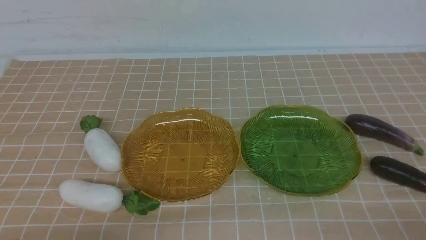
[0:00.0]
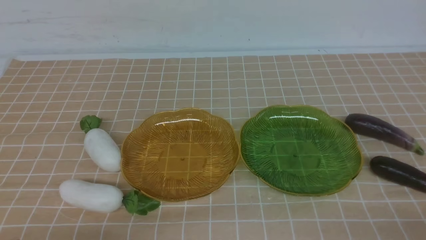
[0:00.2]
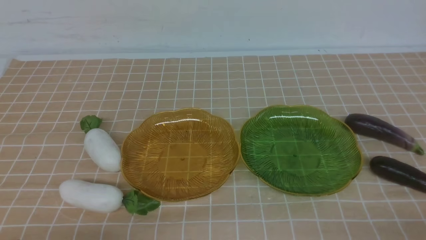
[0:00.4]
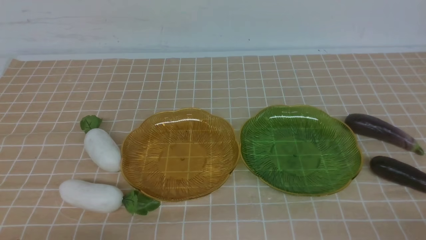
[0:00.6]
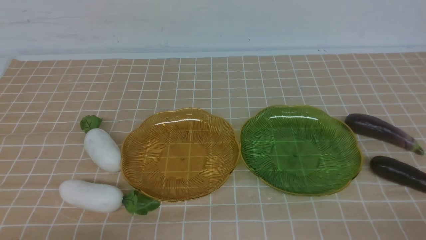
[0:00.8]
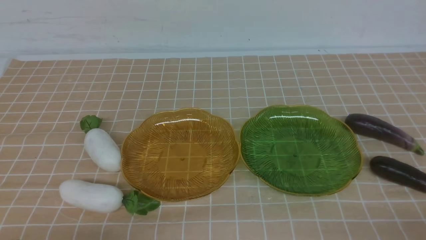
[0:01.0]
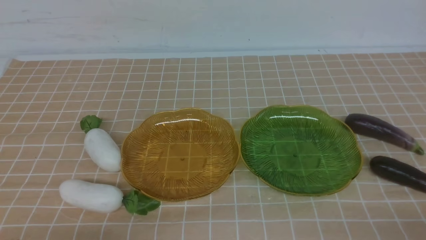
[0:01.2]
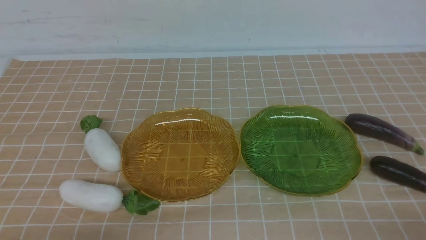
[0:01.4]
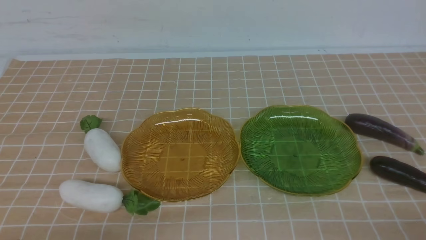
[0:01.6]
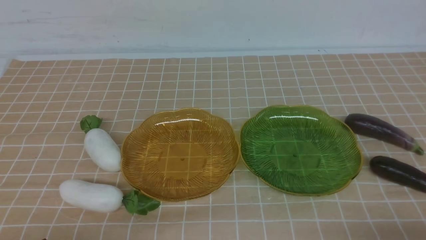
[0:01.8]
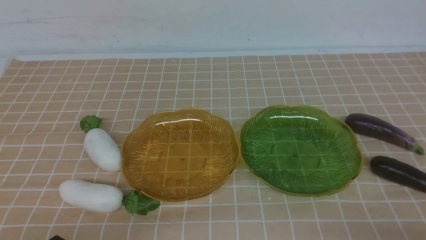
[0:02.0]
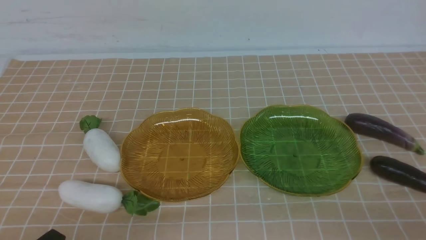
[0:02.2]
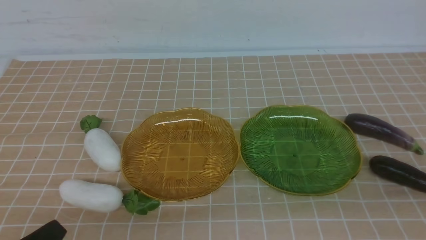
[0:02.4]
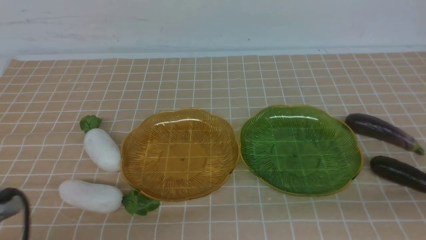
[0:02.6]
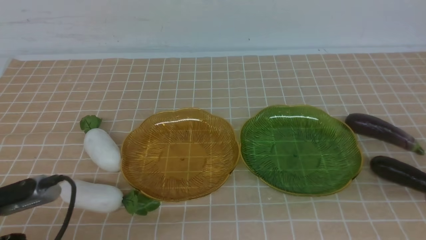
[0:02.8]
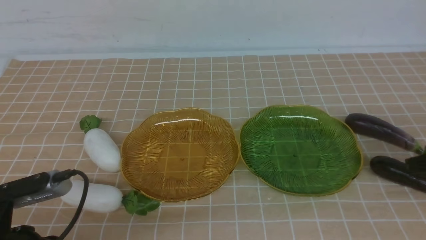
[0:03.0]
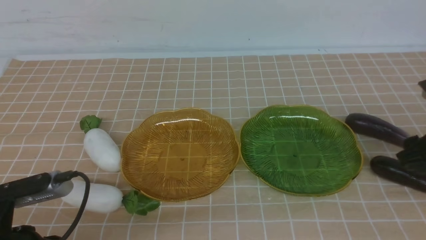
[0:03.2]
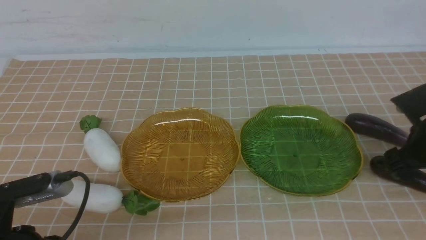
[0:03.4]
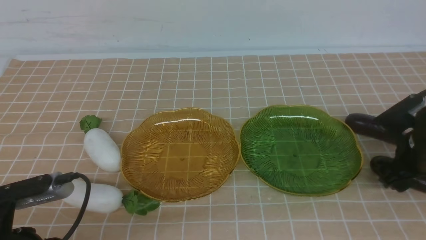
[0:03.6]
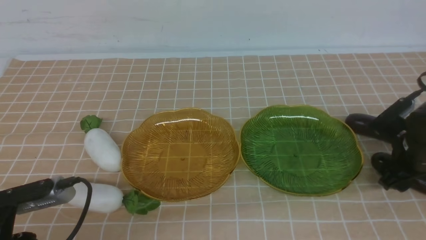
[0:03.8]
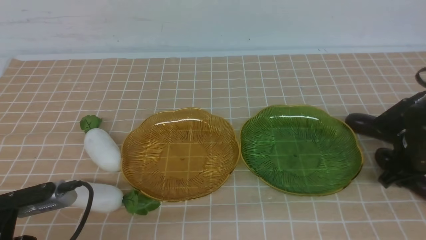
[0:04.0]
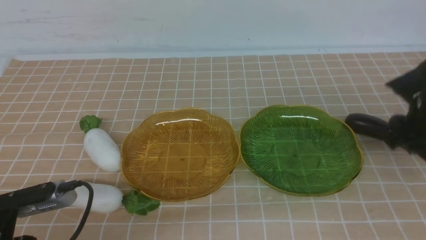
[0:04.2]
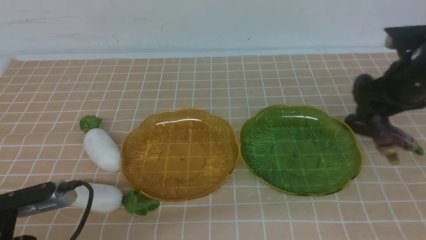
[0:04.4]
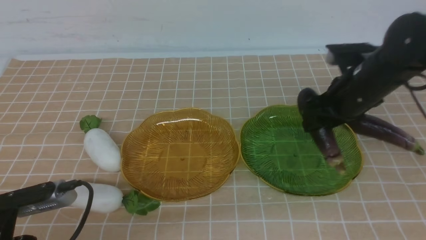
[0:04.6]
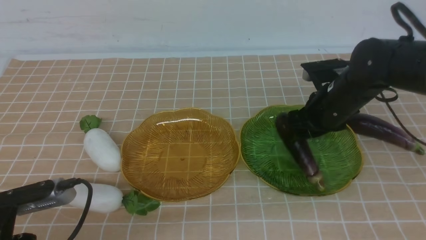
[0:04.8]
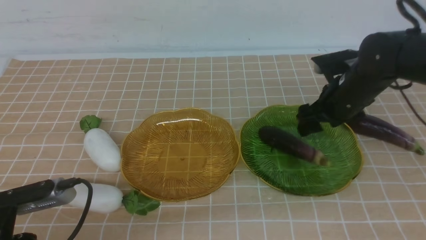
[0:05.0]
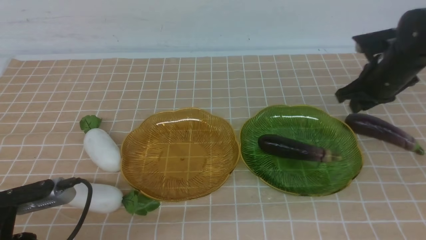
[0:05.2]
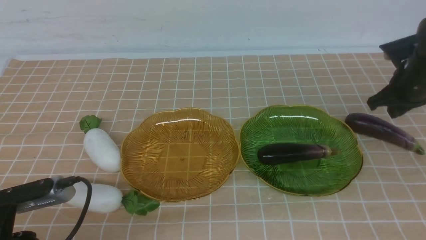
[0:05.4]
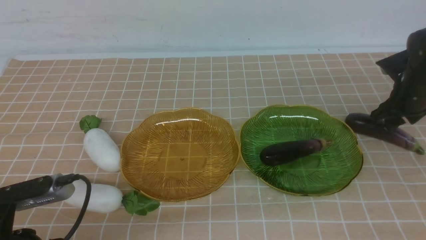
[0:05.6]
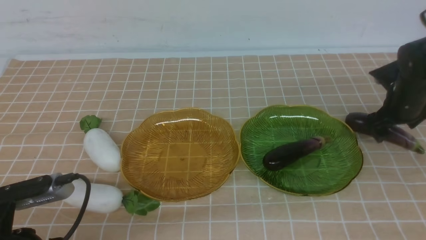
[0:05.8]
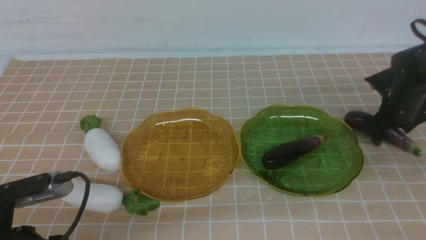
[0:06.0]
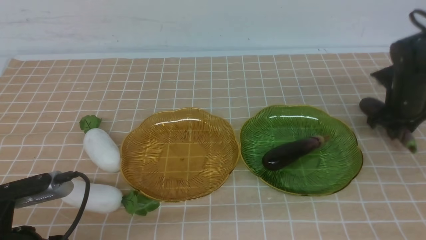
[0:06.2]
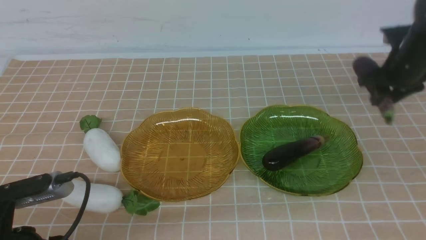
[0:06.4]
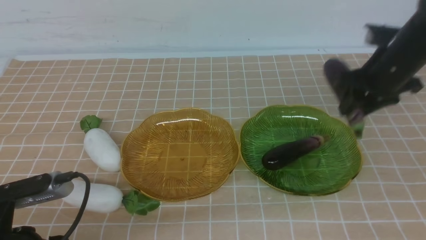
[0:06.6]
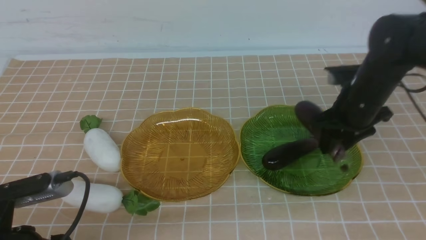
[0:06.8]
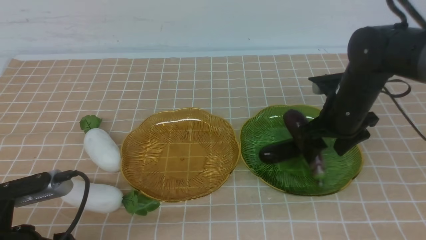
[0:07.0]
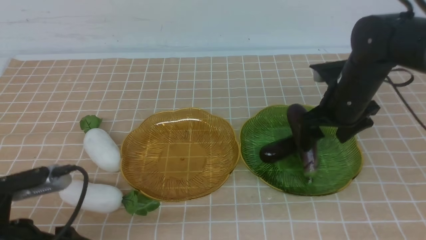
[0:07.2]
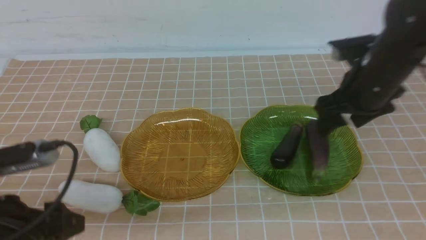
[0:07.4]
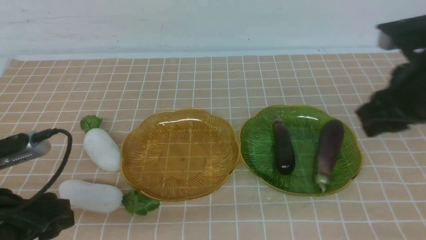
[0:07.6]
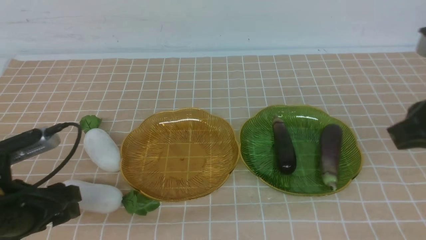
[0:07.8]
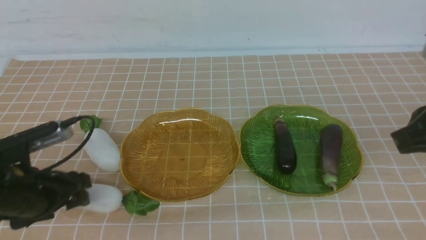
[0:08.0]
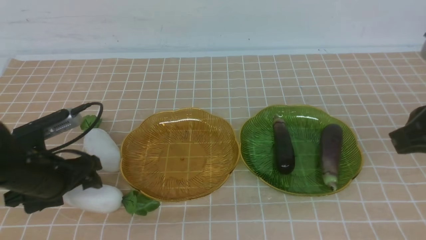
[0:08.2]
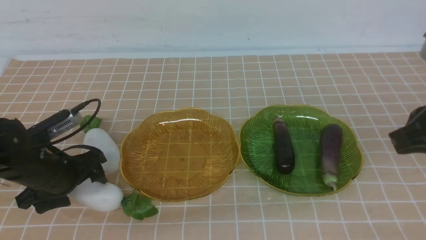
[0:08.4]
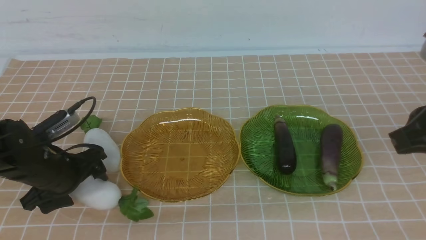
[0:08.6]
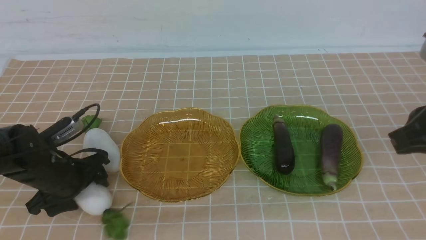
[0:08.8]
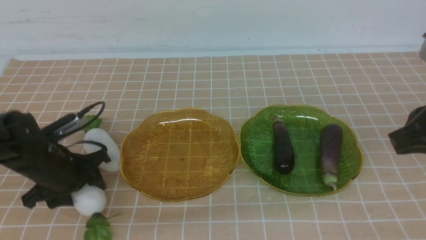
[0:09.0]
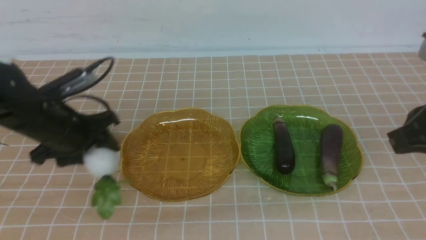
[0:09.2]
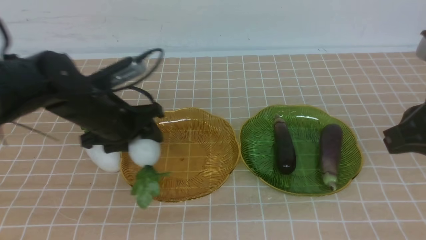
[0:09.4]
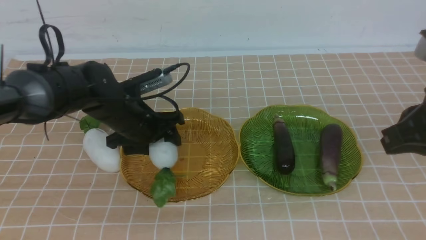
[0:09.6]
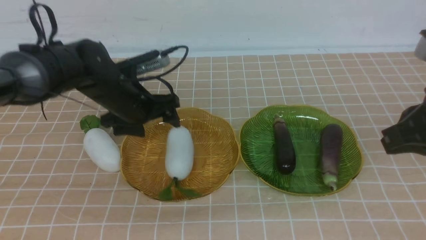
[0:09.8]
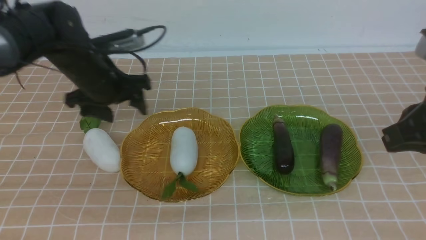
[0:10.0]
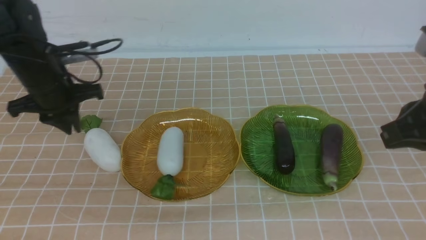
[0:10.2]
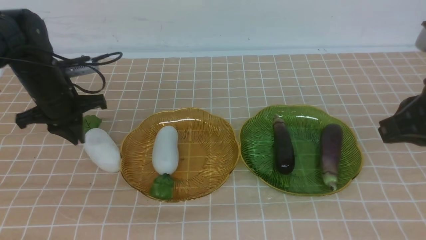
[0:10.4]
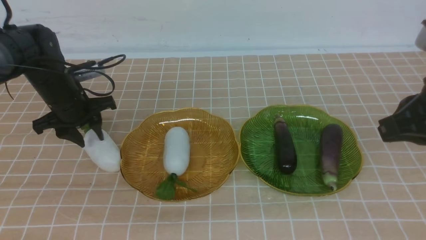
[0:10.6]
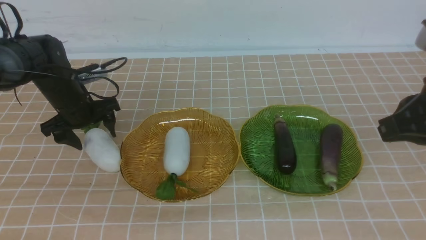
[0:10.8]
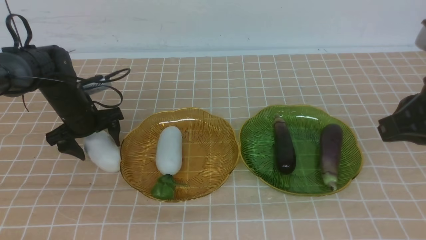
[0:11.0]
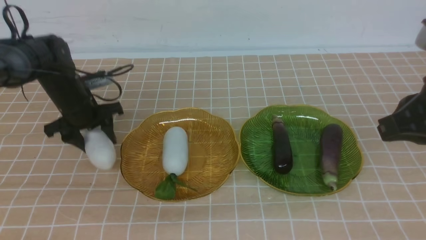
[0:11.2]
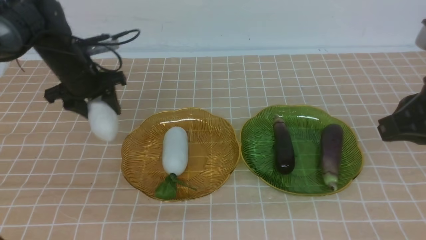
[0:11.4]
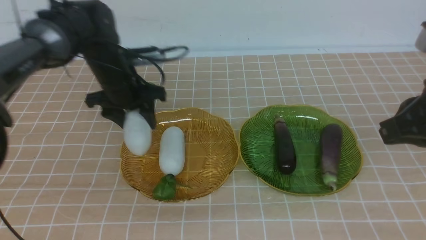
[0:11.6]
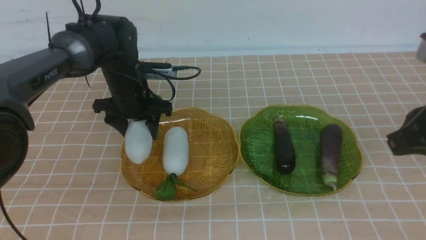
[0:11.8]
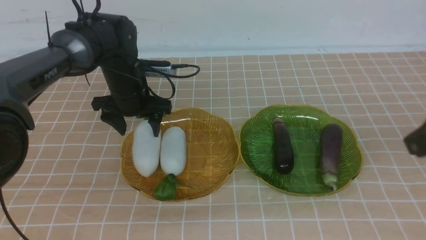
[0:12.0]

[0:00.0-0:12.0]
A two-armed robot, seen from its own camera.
Step, 0:00.0 to 0:07.2: use the right arm to grab an eggplant and put it into the right plate.
Step, 0:07.4 to 0:09.8: use the left arm to grab a radish and put it into the left plate.
0:01.6 to 0:03.0: The left gripper travels forward and upward by approximately 10 cm.
0:03.0 to 0:04.4: The right gripper travels to the left and forward by some 15 cm.
0:04.4 to 0:06.0: The right gripper is displaced to the right, forward and downward by about 15 cm, and closes and opens again.
0:06.0 to 0:07.6: The right gripper moves backward, upward and to the left, some 30 cm, and closes its fingers; the left gripper shifts some 5 cm forward, and opens.
0:07.6 to 0:09.0: The left gripper is displaced forward by approximately 10 cm.
0:09.0 to 0:10.4: The left gripper shifts roughly 10 cm forward, goes to the right and returns, about 10 cm each way, and closes its fingers.
0:10.4 to 0:12.0: The left gripper is displaced to the right by roughly 10 cm, and opens its fingers. The right gripper shifts about 5 cm backward.

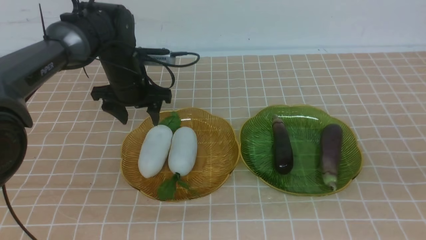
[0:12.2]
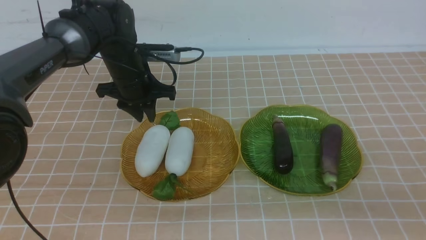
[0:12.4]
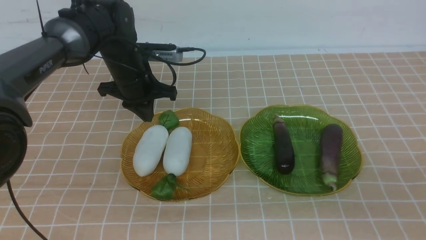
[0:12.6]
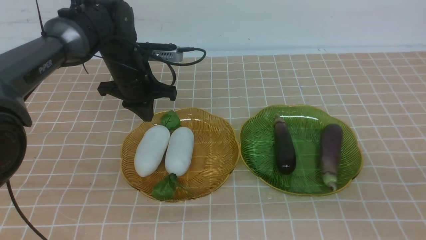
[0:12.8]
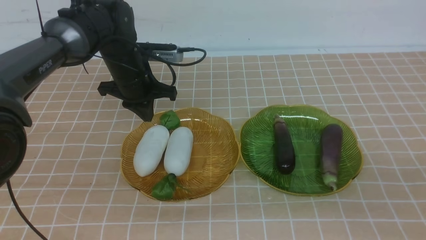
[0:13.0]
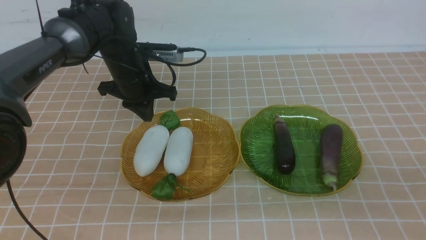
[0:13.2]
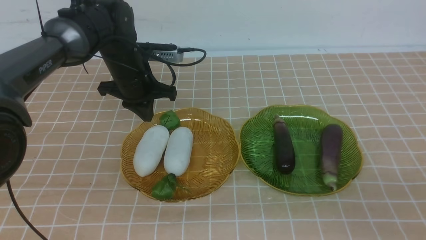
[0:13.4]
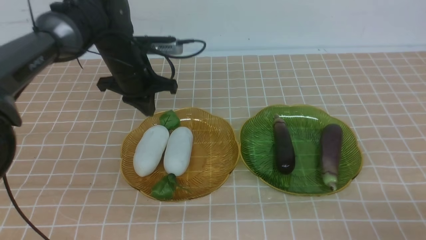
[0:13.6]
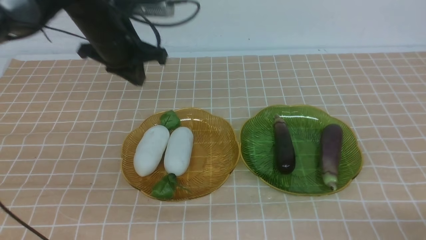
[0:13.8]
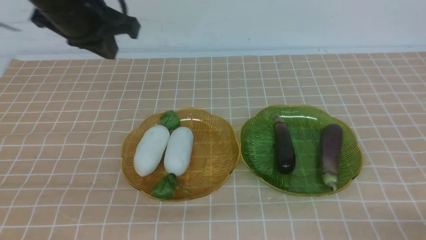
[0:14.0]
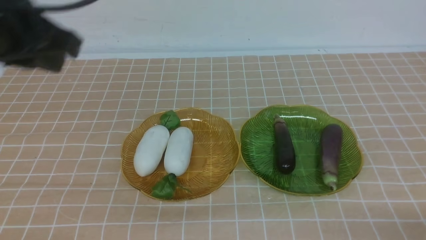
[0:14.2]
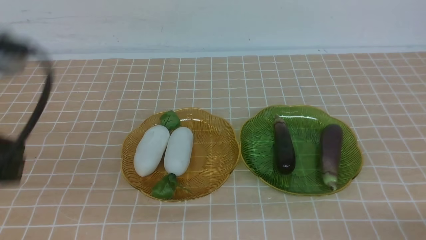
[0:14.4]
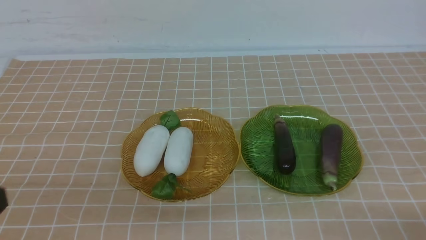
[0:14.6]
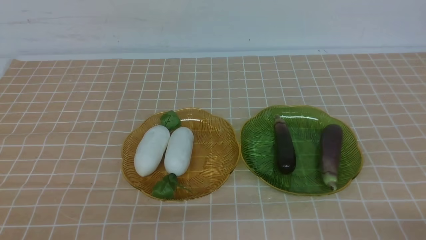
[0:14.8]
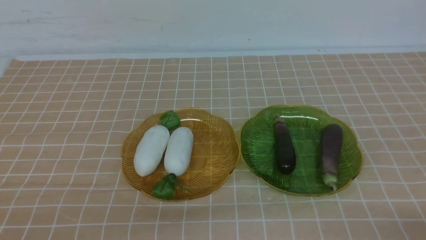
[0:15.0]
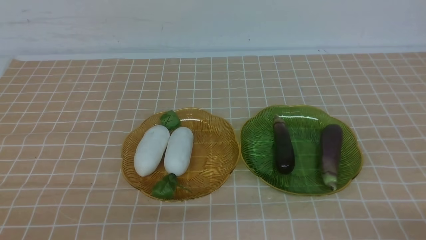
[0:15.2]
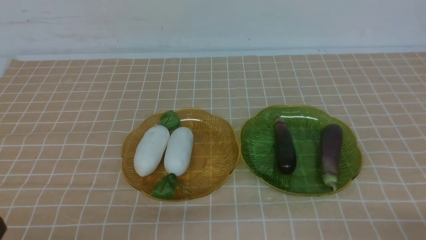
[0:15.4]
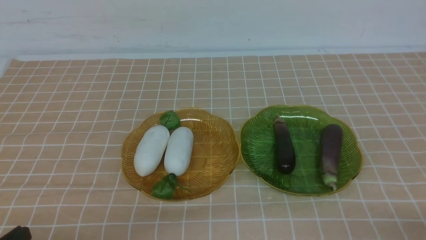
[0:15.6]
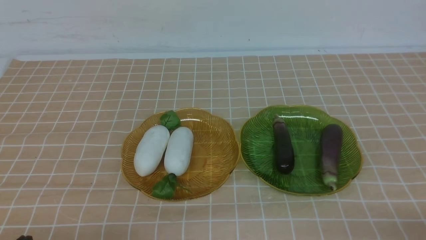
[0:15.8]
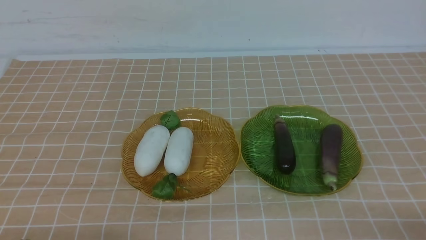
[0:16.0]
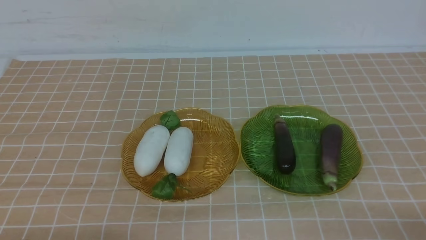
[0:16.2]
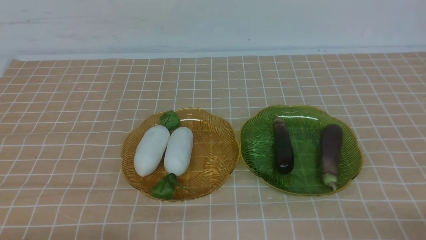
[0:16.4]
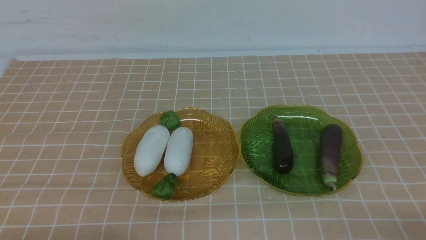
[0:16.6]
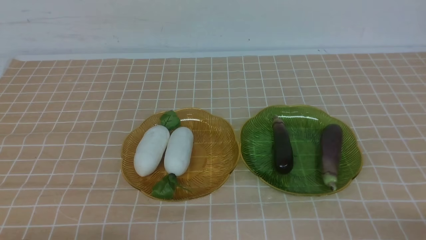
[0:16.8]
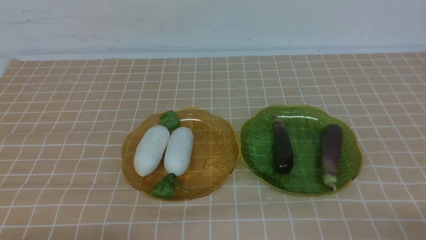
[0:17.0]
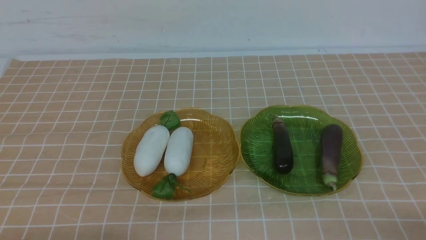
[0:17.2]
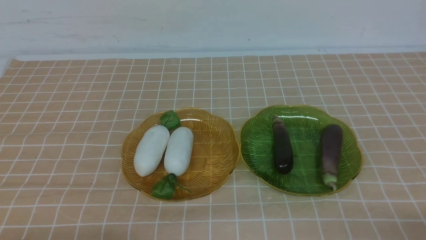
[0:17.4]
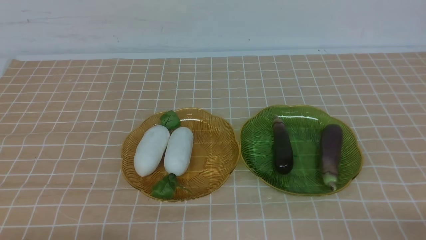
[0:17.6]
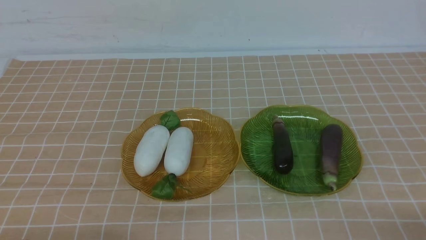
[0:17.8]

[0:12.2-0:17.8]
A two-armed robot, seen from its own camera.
0:12.2 to 0:13.6: The right gripper is displaced downward by about 15 cm. Meanwhile the left gripper goes roughly 10 cm upward, and closes its fingers.
0:13.6 to 0:15.0: The left gripper heads backward, covering some 40 cm.
0:16.4 to 0:17.8: Both grippers stay put.
